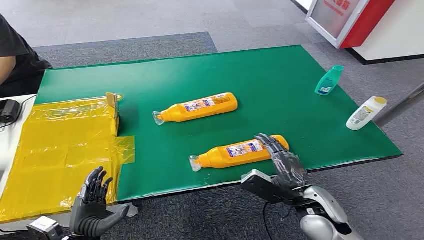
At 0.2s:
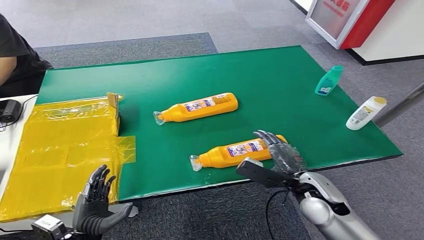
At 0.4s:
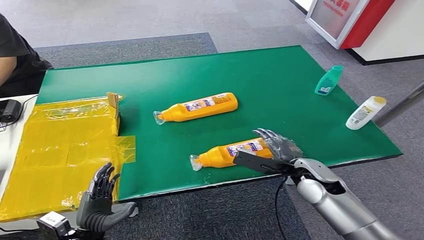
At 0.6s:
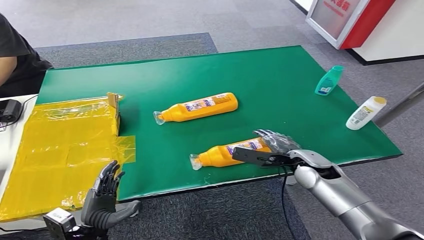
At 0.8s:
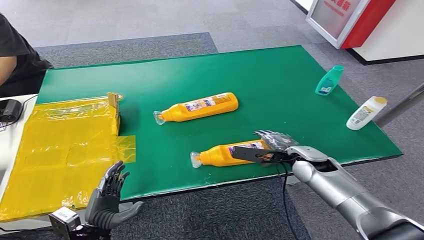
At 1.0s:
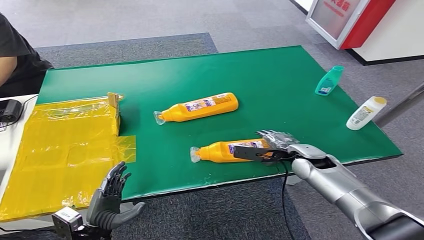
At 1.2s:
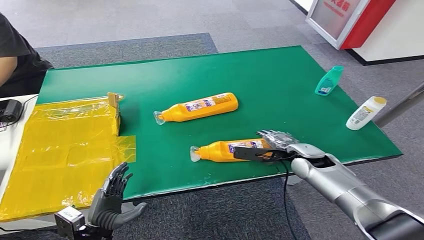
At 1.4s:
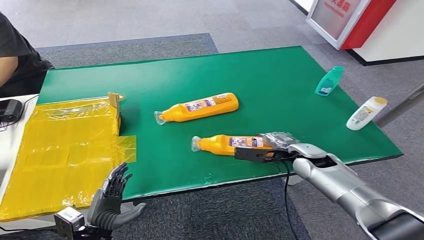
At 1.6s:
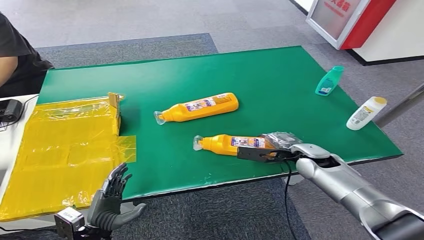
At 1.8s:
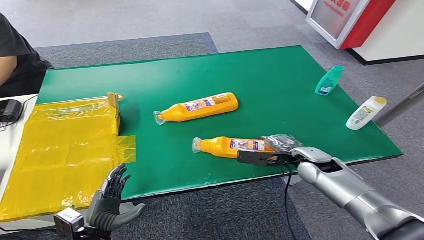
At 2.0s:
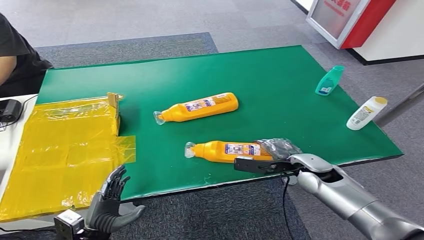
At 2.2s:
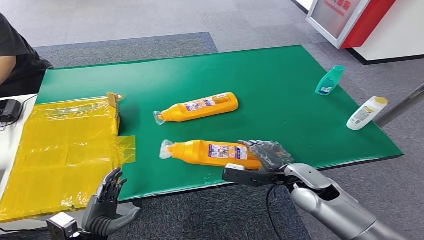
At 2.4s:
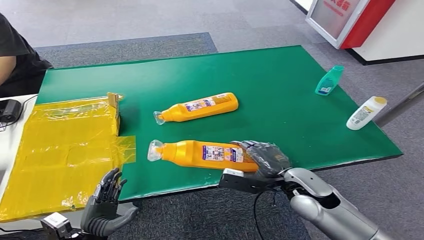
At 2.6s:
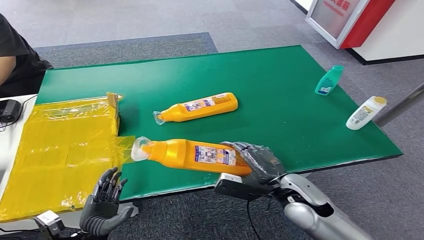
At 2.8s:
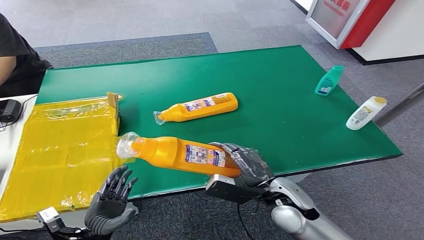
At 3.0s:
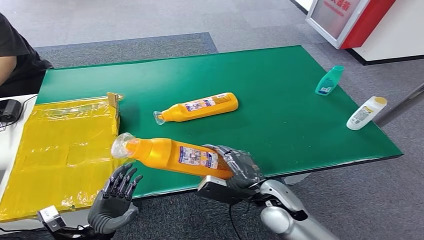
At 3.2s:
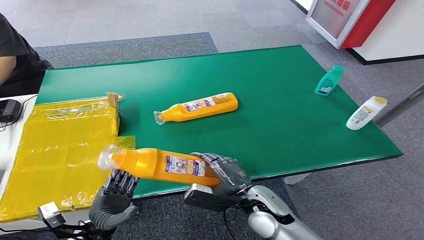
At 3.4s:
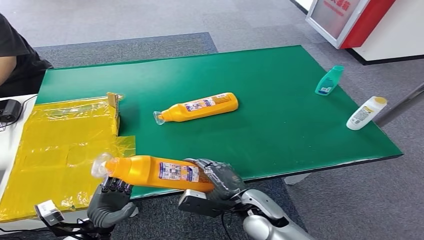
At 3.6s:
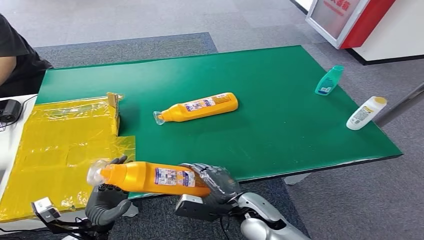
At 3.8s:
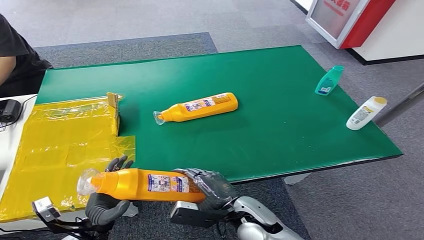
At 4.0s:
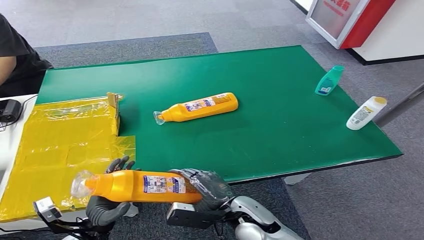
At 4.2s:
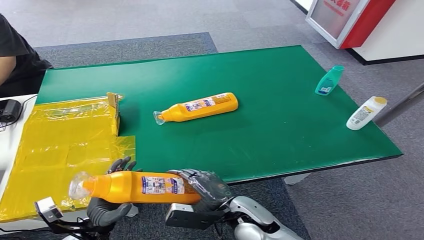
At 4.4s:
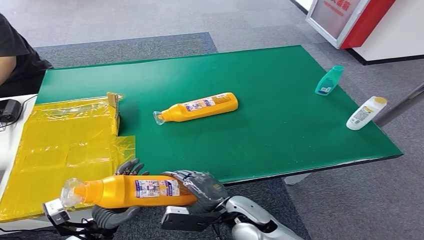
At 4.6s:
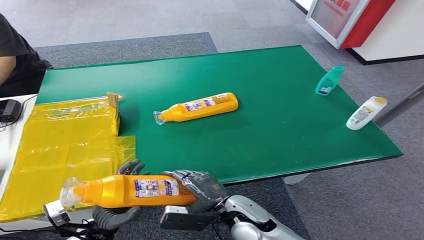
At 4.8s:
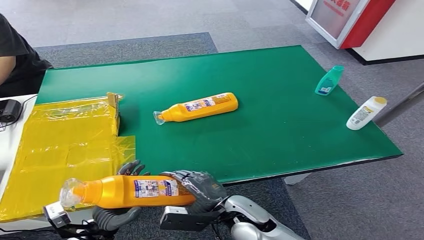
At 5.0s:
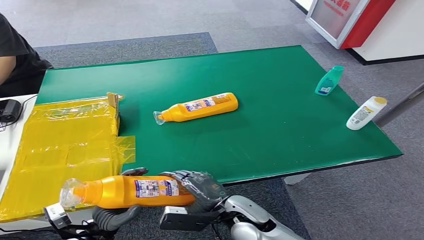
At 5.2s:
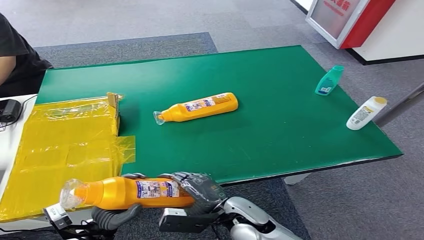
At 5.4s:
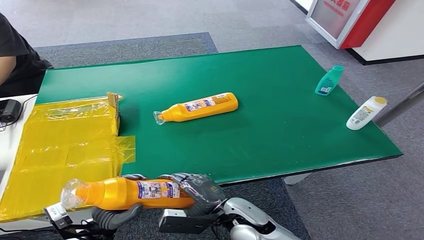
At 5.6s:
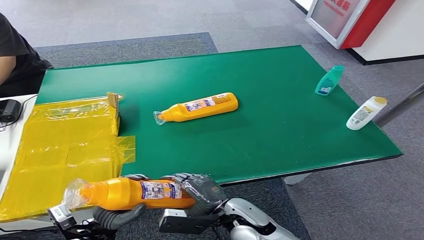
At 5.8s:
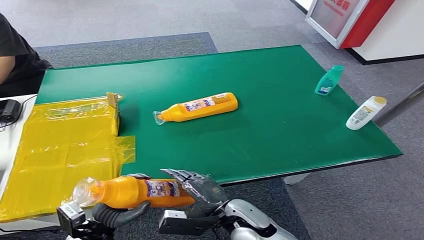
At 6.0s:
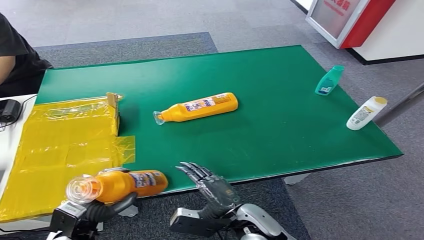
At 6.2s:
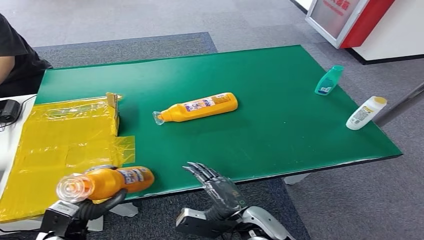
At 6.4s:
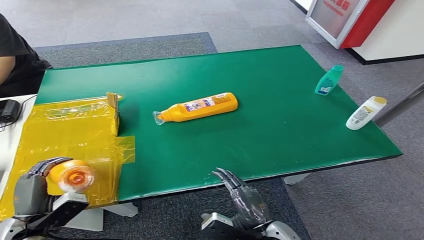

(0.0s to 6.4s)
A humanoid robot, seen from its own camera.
Step, 0.0s - 3.0s: Pick up the bottle from the table.
Step, 3.2s - 6.4s: Turn the bottle to the front side.
1.6s - 3.2s: The right hand shifts approximately 20 cm to the left and backward.
3.2s - 4.8s: The right hand shifts by approximately 5 cm.
4.8s - 6.4s: The right hand moves backward and to the right, approximately 10 cm, while the left hand heads to the left and upward, covering about 15 cm.

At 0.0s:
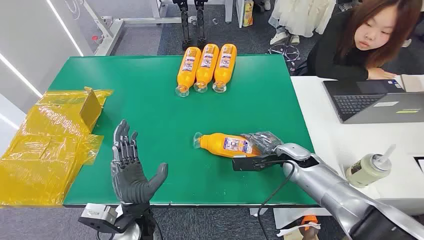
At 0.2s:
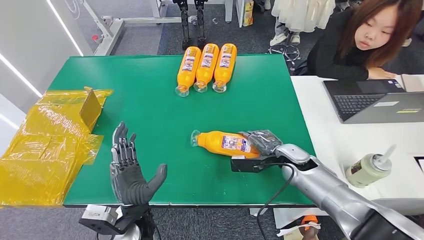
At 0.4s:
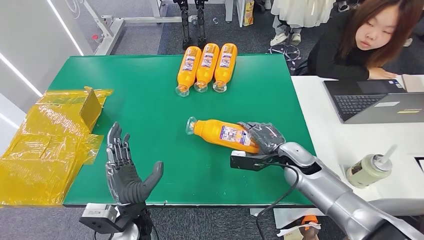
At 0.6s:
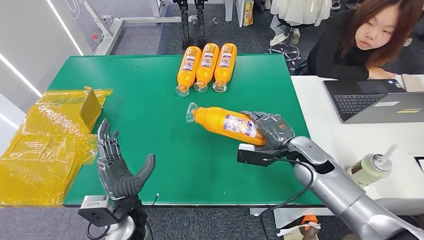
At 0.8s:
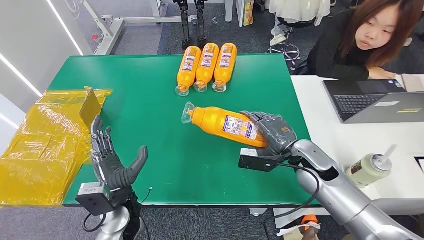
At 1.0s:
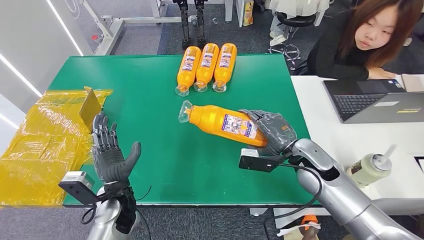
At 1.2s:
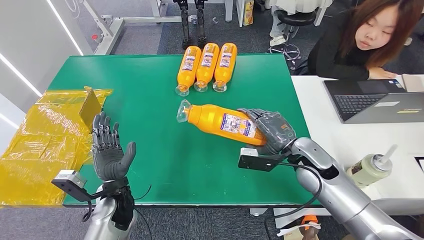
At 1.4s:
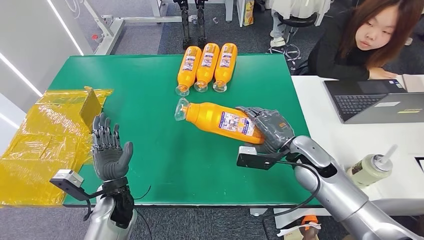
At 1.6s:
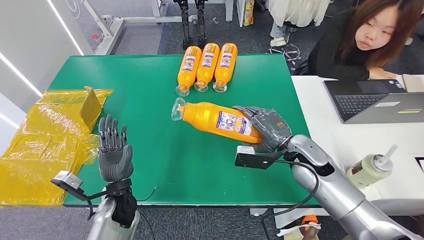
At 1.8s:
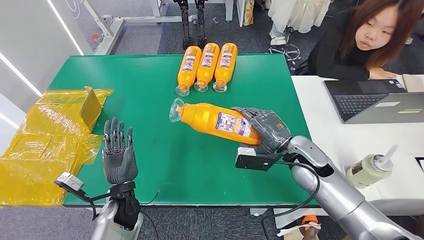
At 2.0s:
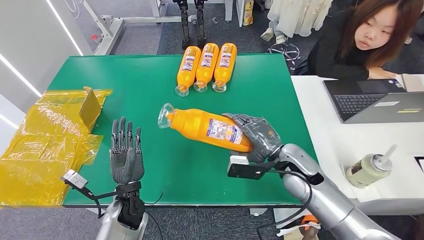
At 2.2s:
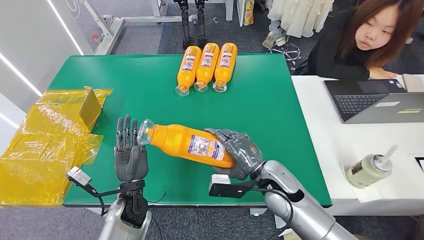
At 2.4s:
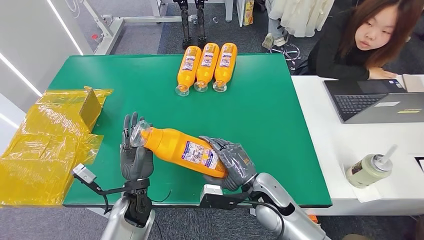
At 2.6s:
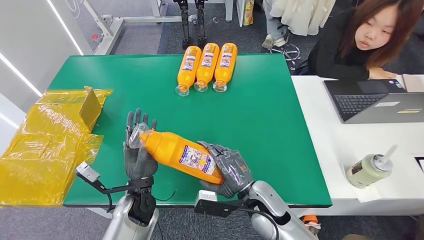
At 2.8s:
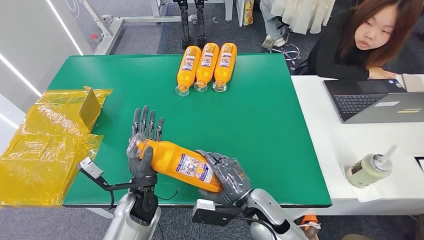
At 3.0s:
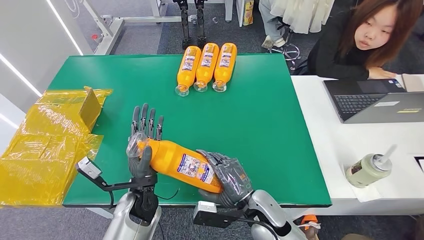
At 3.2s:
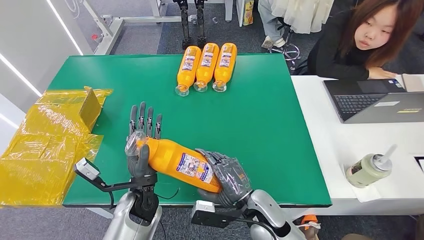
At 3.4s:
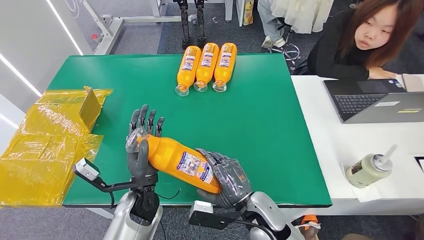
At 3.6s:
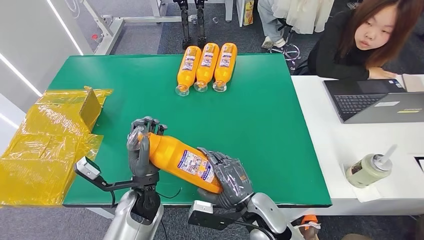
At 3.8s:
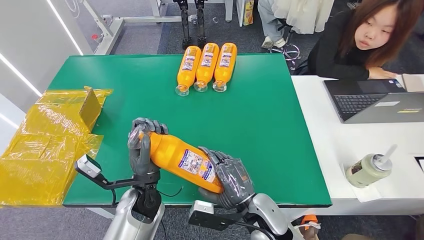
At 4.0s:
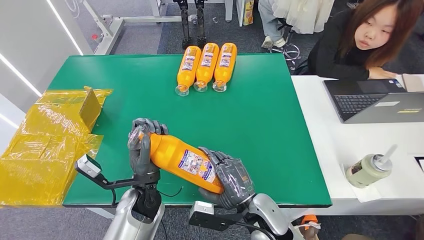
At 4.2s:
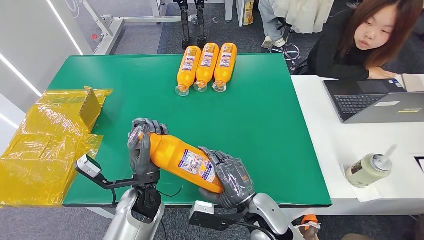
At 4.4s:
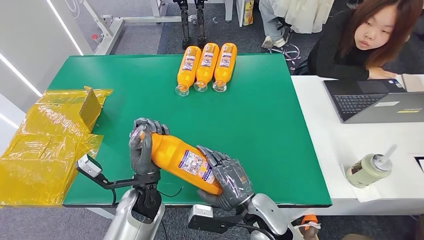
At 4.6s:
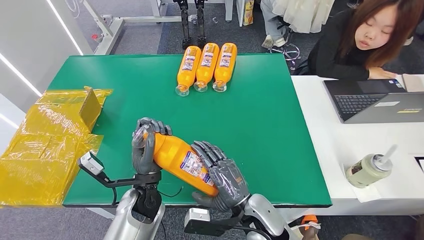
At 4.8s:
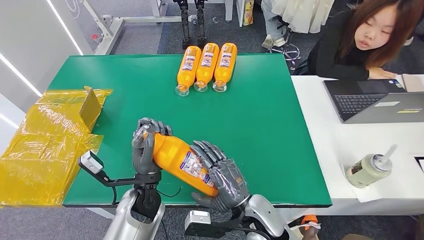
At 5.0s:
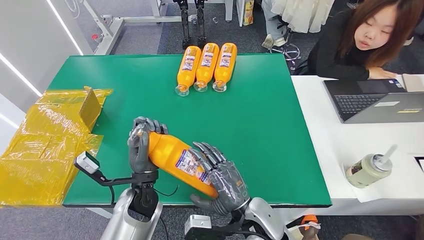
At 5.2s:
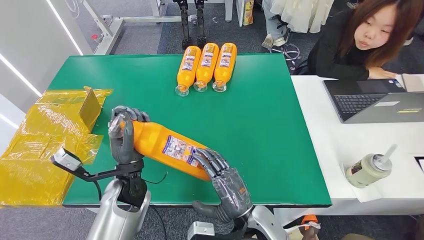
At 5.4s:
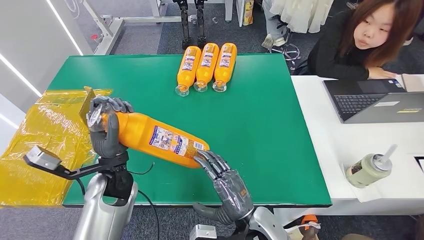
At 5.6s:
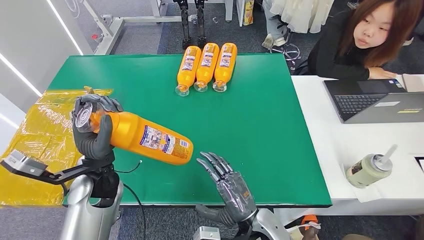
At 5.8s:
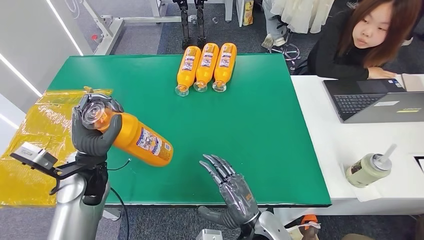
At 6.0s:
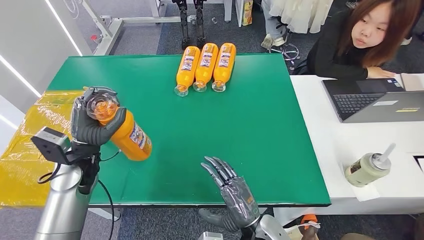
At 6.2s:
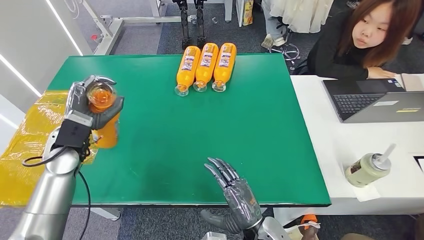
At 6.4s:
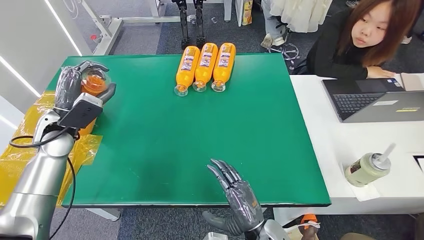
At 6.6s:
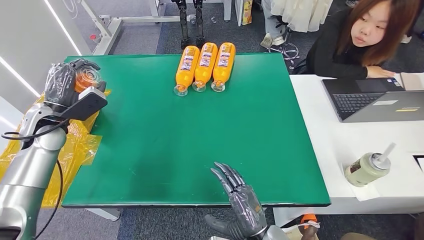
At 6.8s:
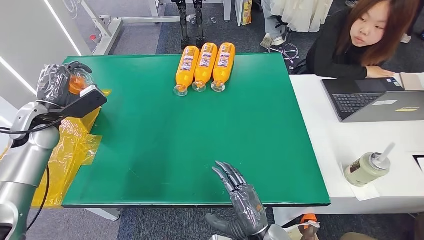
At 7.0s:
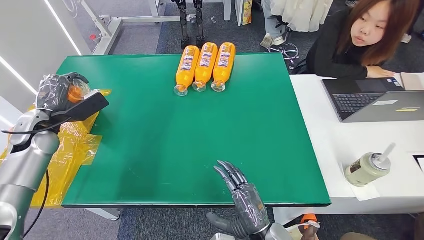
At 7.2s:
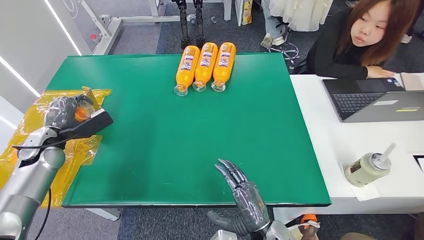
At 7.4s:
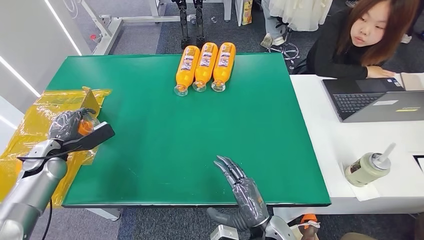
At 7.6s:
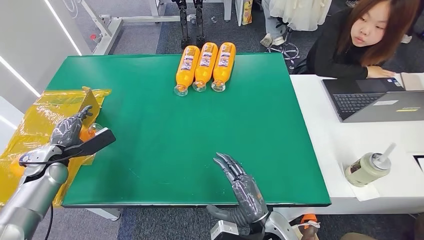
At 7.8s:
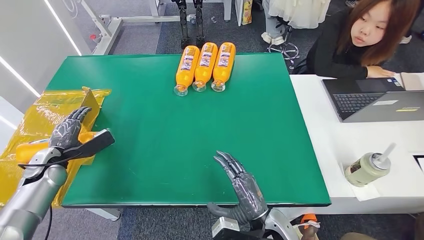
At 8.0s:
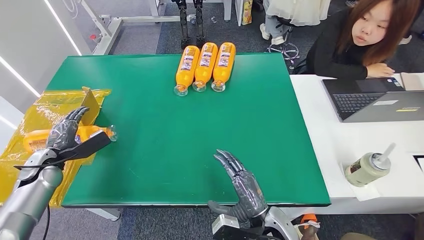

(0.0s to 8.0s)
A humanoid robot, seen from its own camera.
Step, 0.0s - 2.2s: Pick up the bottle from the table.
Step, 2.4s - 8.0s: Turn the bottle to the front side.
3.2s - 4.8s: There are only small adjustments of the hands.
6.4s - 8.0s: The left hand travels downward, to the left and backward by approximately 15 cm.
